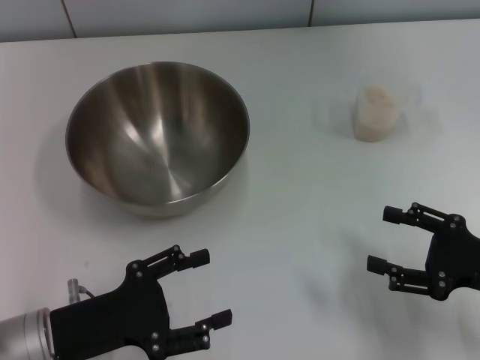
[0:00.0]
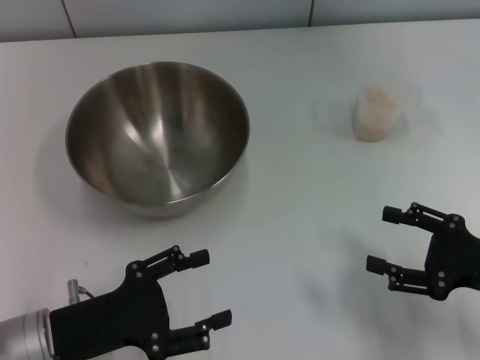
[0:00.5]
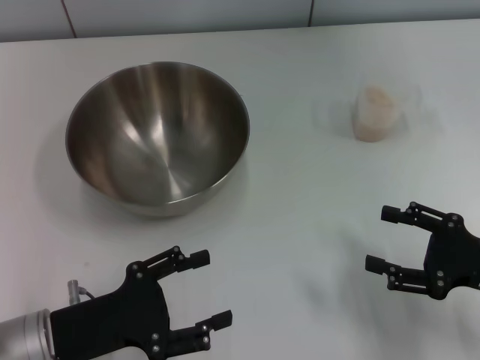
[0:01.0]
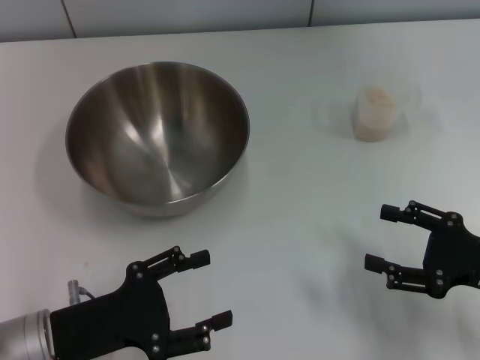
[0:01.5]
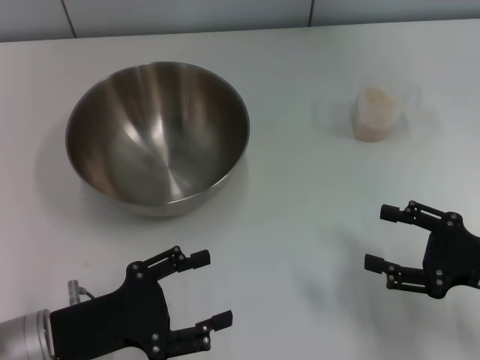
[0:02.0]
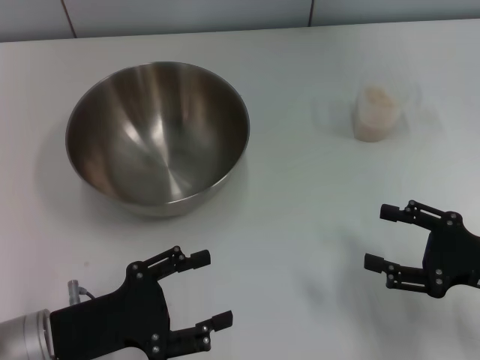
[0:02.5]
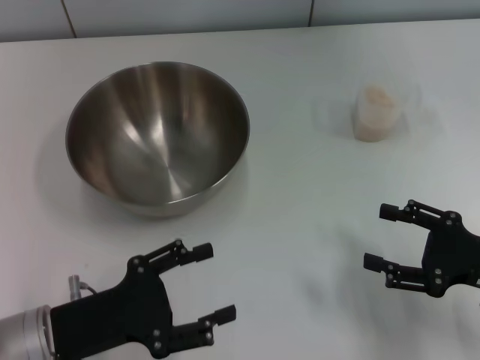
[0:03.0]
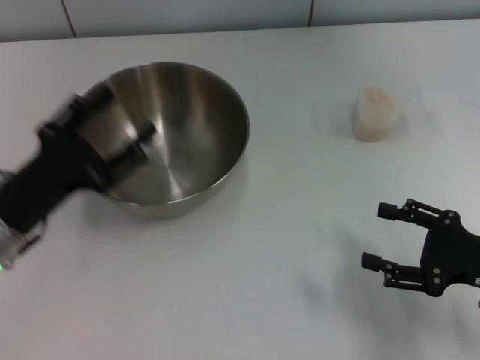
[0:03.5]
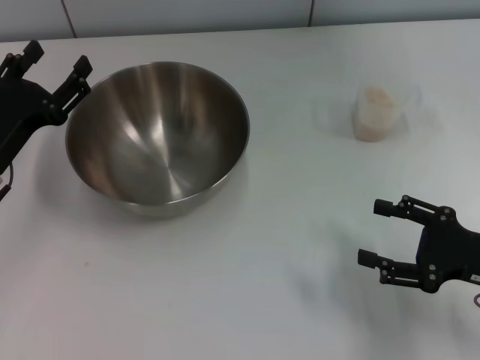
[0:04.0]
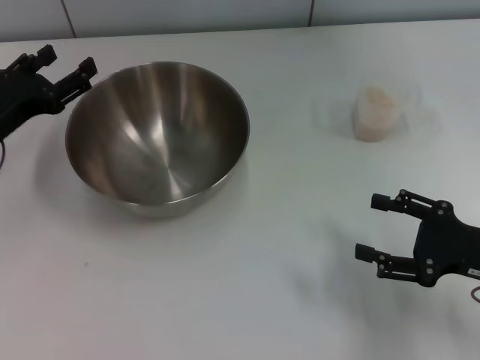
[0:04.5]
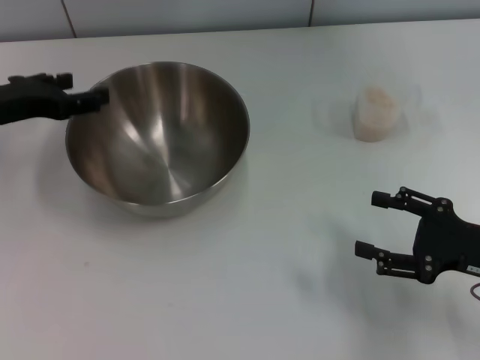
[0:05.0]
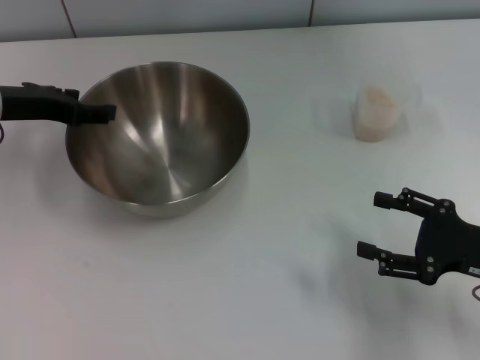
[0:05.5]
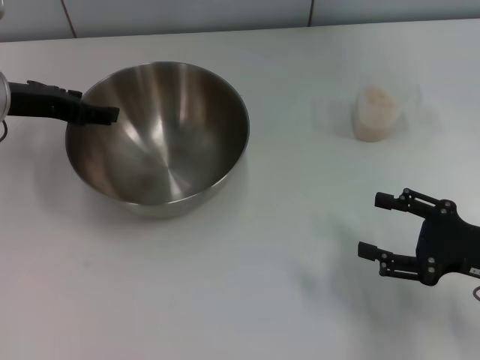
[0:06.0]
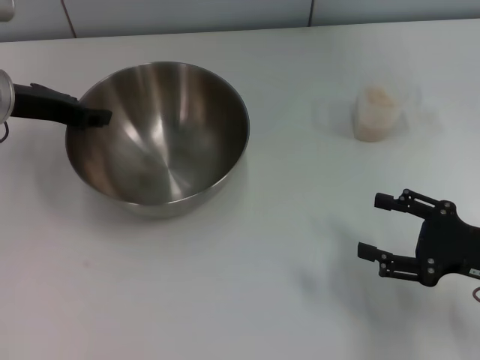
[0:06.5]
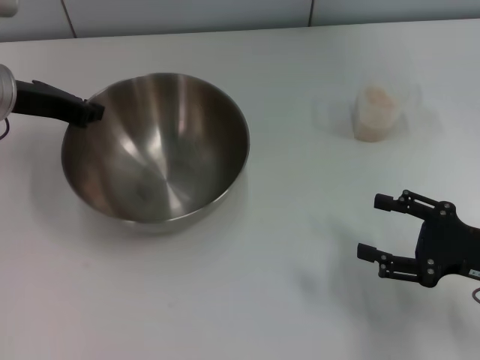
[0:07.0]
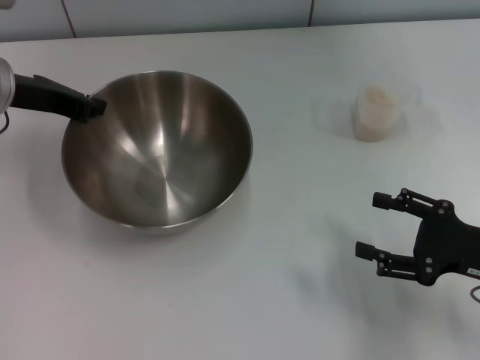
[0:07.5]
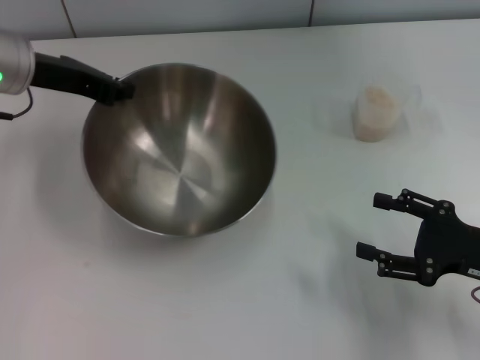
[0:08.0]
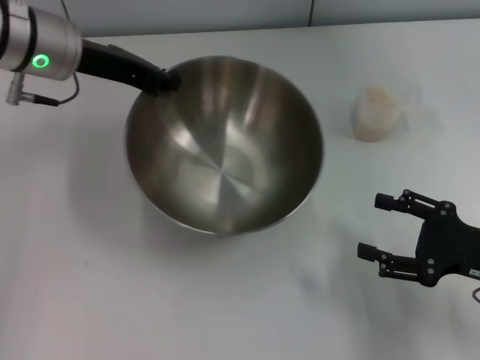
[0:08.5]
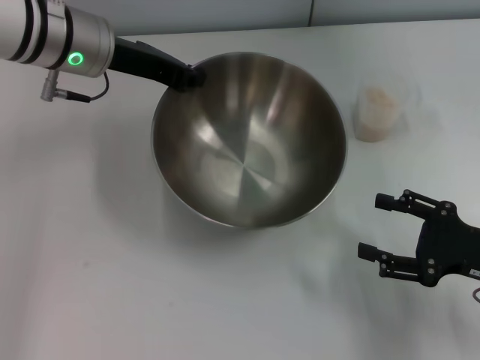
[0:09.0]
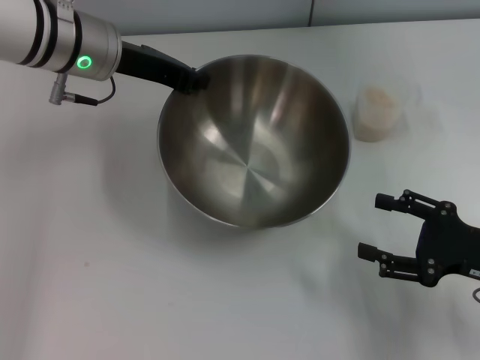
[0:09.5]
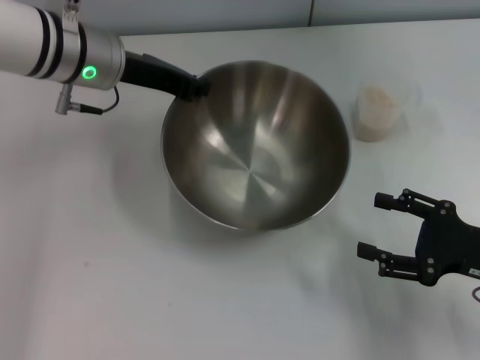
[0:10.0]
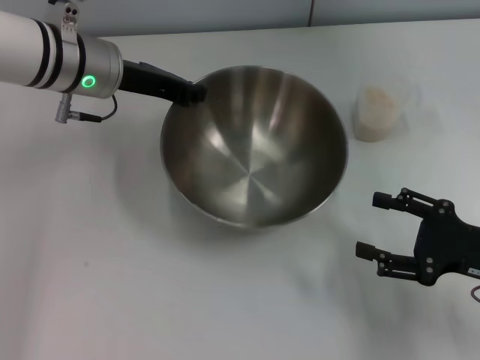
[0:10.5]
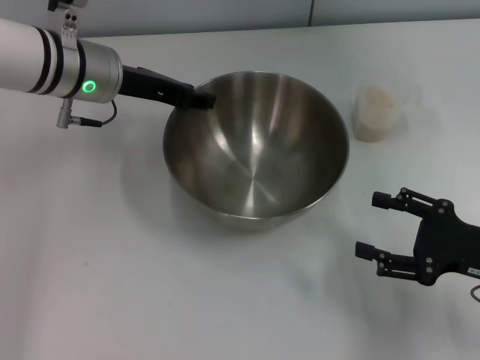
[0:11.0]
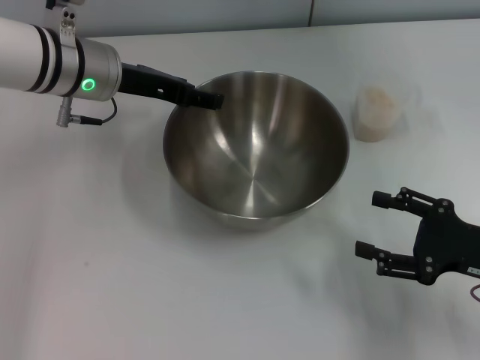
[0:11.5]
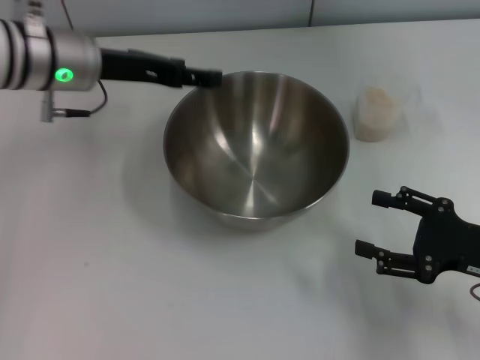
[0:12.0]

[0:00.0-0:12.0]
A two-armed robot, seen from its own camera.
Task of the whole recording: Place the bowl in the middle of the table with one hand and pour the rice from the grain cup into it with the other hand.
Step, 0:00.0 to 0:07.5: Pick up the bowl with the left gripper.
0:00.0 to 0:02.0: Neither gripper changes place.
0:02.0 to 0:04.0: The left gripper heads forward, covering approximately 10 cm.
0:04.0 to 0:06.0: The left gripper heads forward and upward, covering roughly 10 cm.
0:06.0 to 0:08.0: The left gripper moves approximately 5 cm, and closes up.
0:08.0 to 0:10.0: The left gripper heads to the right, covering roughly 5 cm.
0:10.0 to 0:12.0: The left gripper opens up.

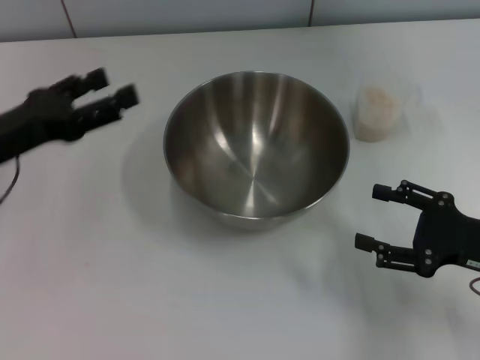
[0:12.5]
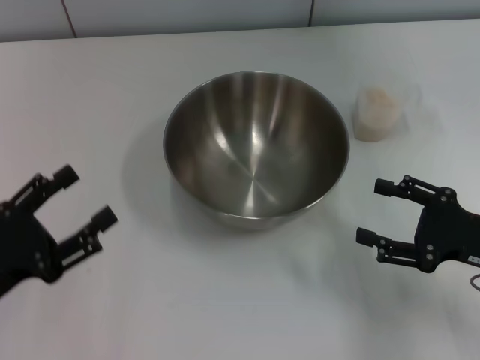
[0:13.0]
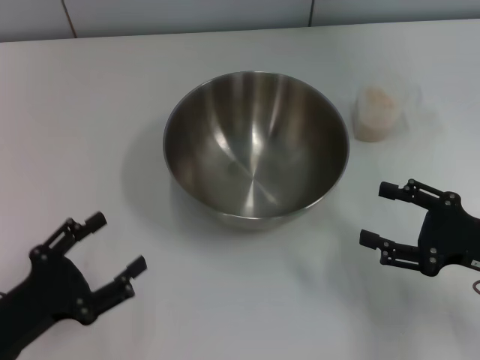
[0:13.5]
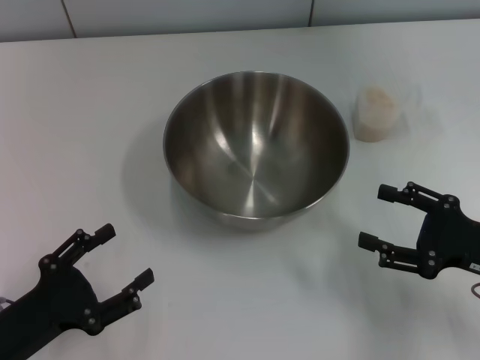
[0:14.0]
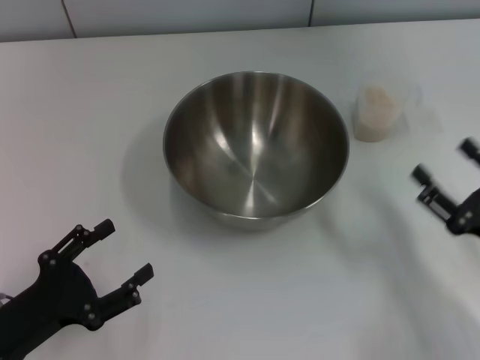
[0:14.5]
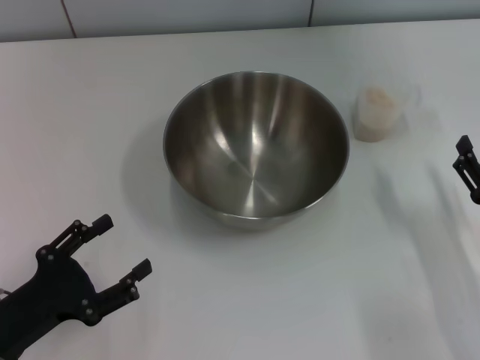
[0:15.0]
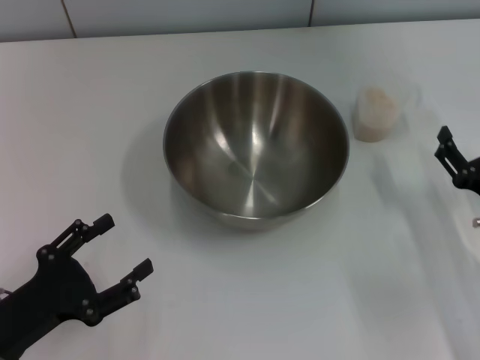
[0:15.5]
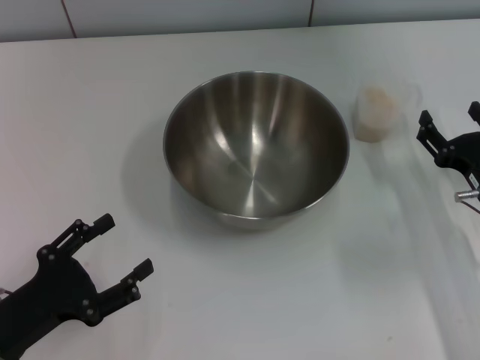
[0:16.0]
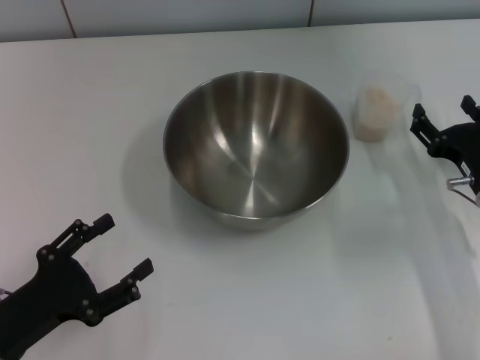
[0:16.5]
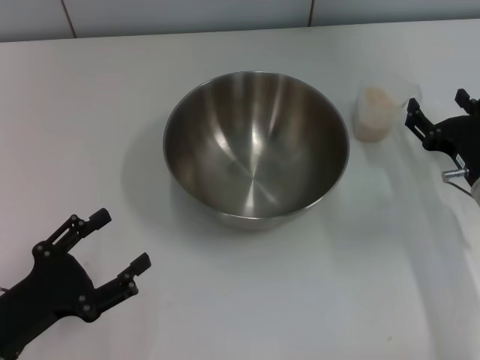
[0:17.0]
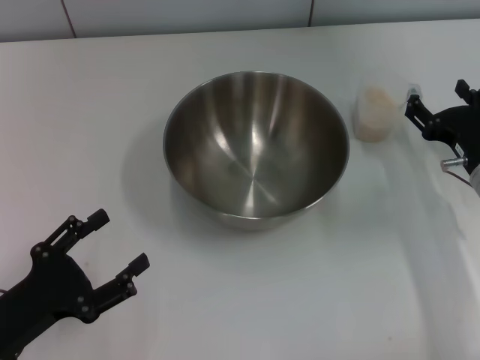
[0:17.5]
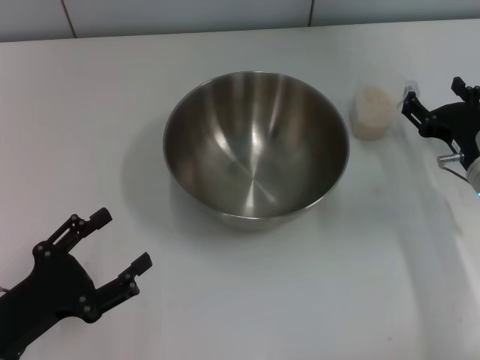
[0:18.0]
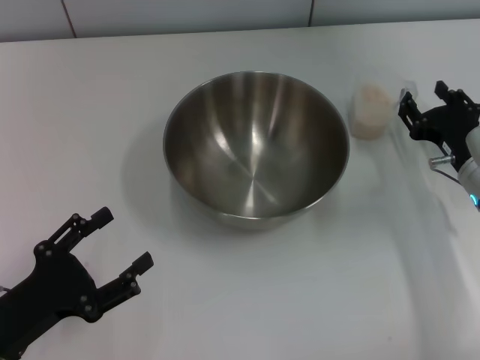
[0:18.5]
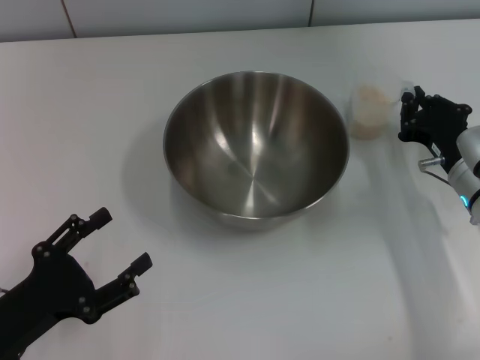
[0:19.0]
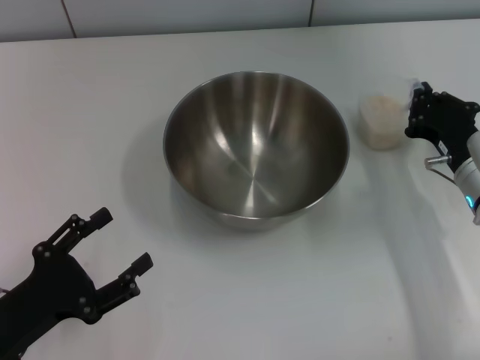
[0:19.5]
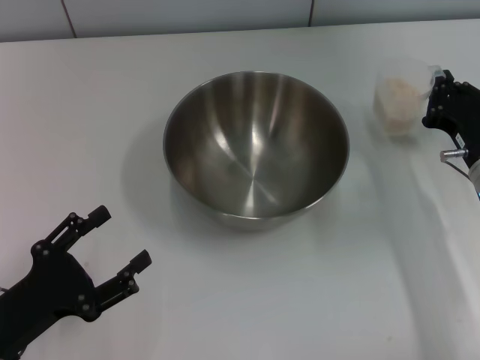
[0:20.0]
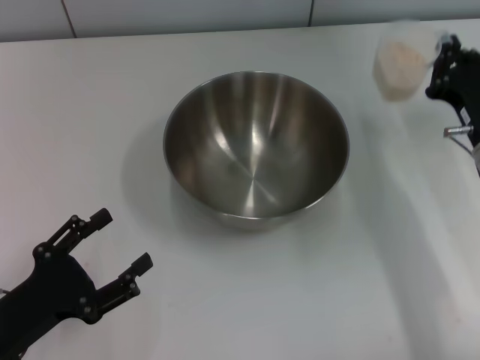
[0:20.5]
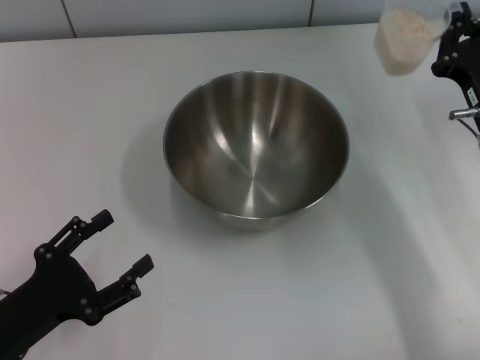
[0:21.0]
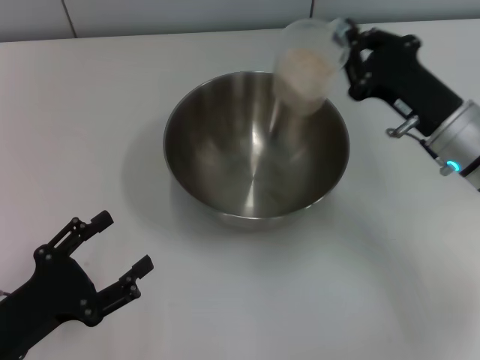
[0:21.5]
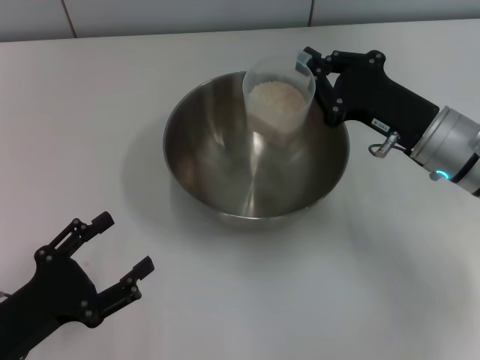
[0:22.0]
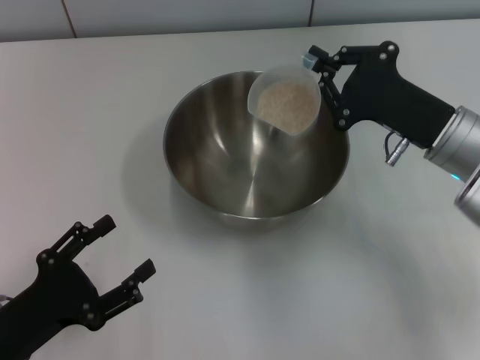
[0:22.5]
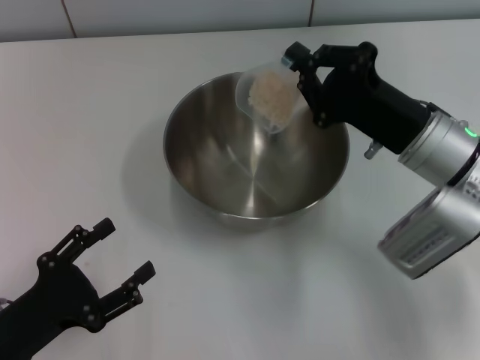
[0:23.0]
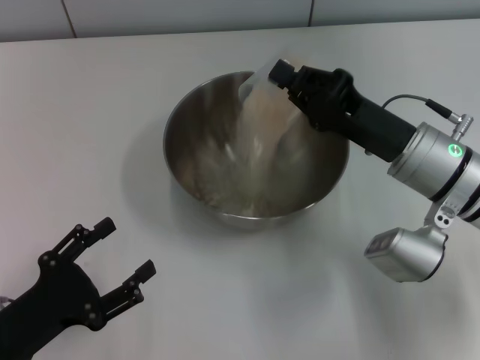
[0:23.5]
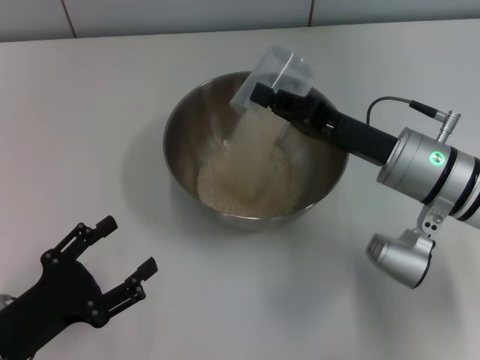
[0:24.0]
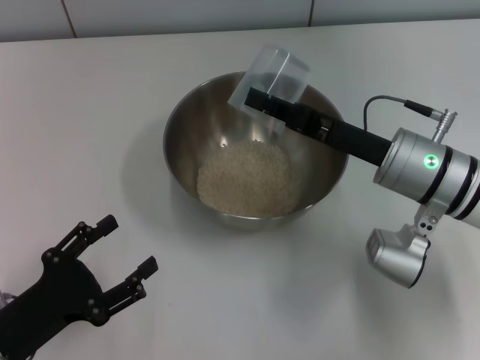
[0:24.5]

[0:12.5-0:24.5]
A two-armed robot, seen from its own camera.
Task of the whole recording: Place the bowl in the middle of the table with one hand and pour the rice from the grain cup into it with the other hand.
Step, 0:12.5 to 0:20.5: Pick up the cup with rice in it with the right gripper.
0:12.5 to 0:14.5: The left gripper moves backward and downward, approximately 20 cm. Meanwhile the right gripper moves some 5 cm.
0:14.5 to 0:16.5: The right gripper shifts about 10 cm forward.
0:16.5 to 0:18.5: The grippers stay close to where they were, moving slightly.
0:18.5 to 0:20.5: The right gripper closes up.
0:20.5 to 0:22.5: The right gripper ends up roughly 5 cm from where it was.

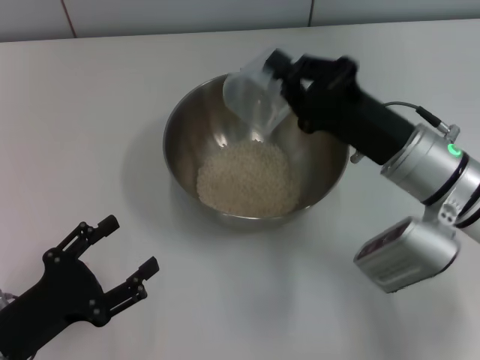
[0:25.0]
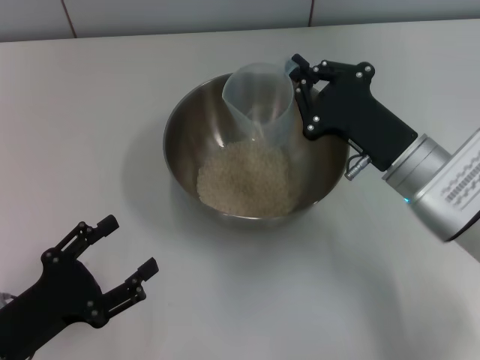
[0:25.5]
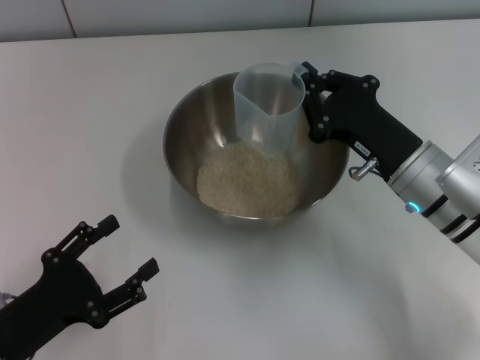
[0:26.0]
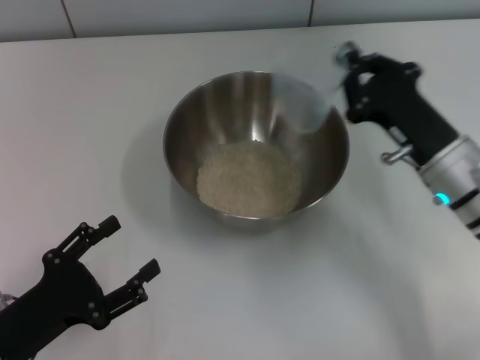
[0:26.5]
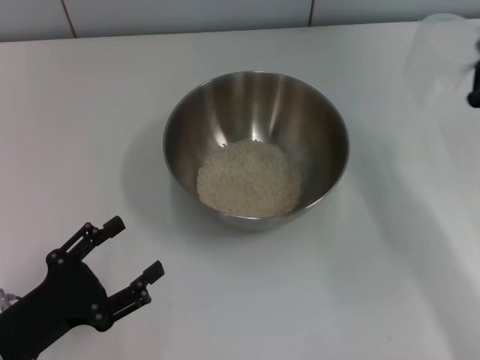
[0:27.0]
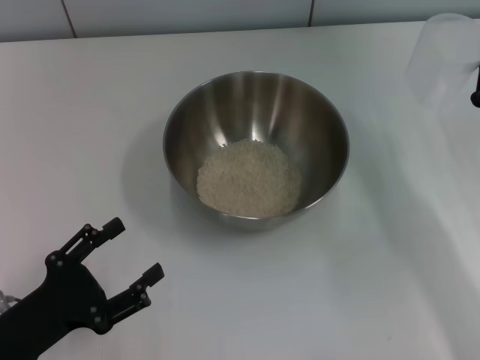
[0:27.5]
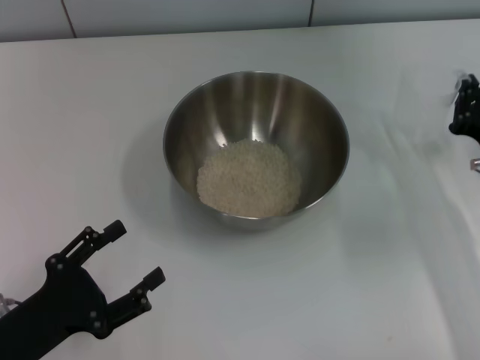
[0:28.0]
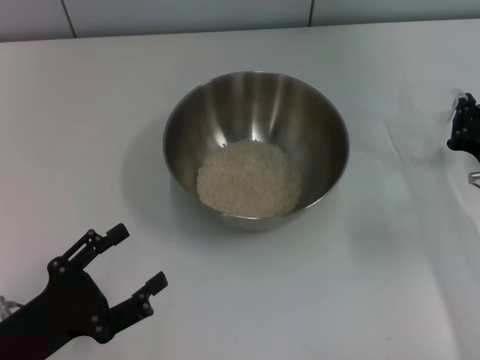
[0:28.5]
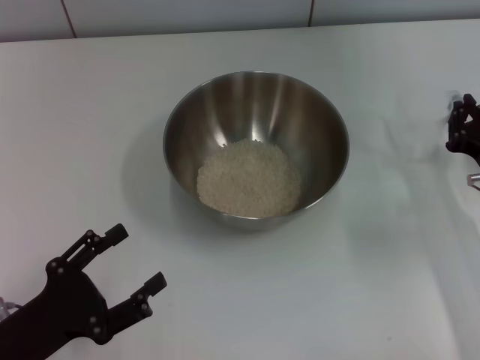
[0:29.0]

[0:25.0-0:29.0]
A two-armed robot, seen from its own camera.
Task of the whole recording: Place the bowl in the middle of the table with one hand and pour the rice from the grain cup into it with the other hand.
0:25.0 to 0:27.0: The right gripper heads to the right, covering some 10 cm.
0:27.0 to 0:29.0: The grippers make only small movements.
